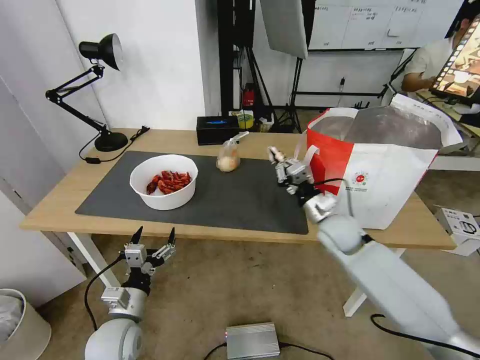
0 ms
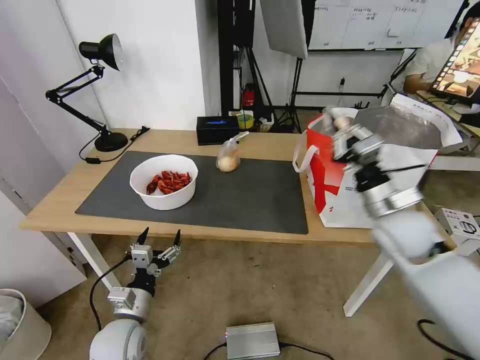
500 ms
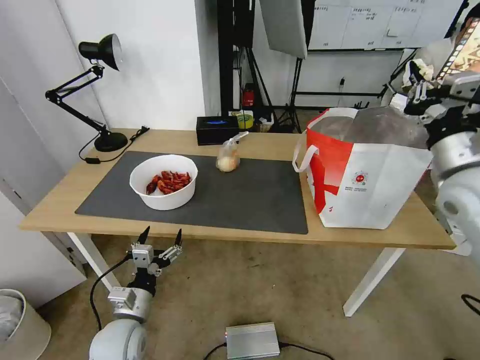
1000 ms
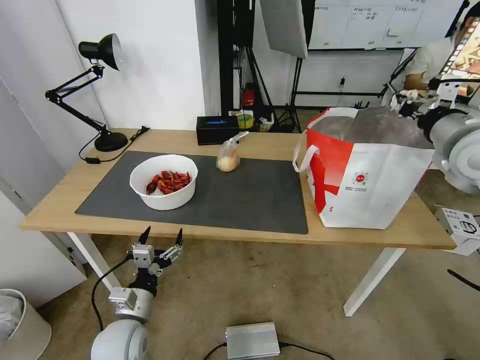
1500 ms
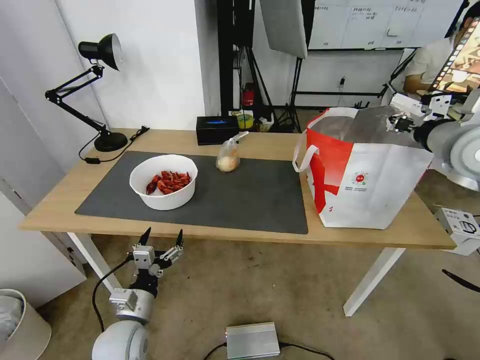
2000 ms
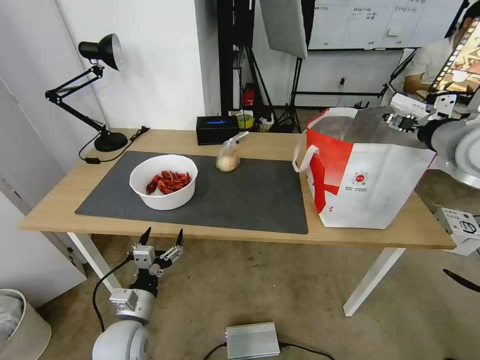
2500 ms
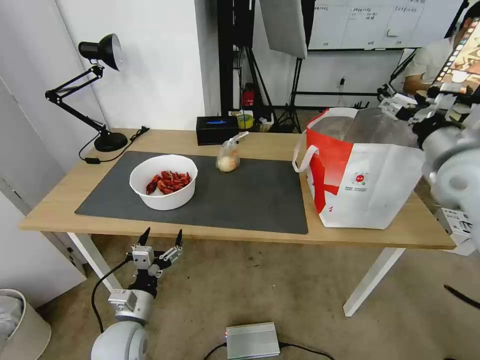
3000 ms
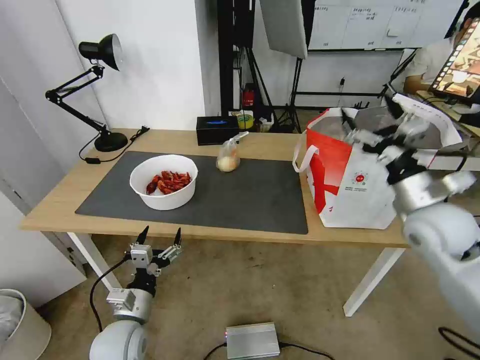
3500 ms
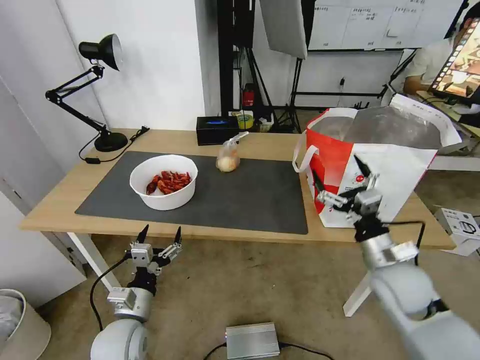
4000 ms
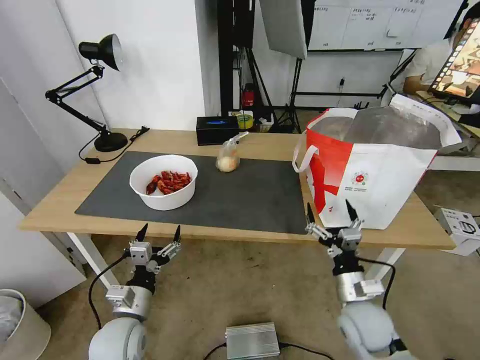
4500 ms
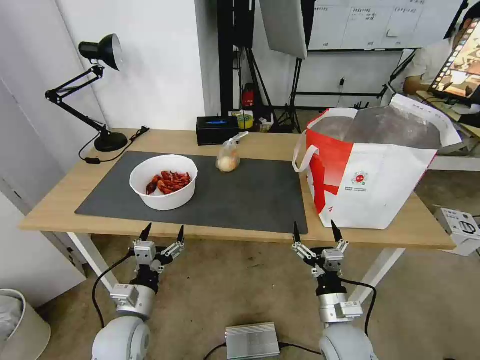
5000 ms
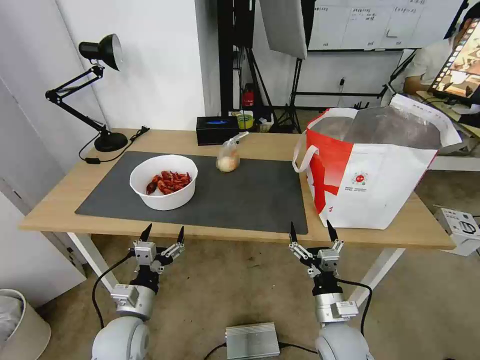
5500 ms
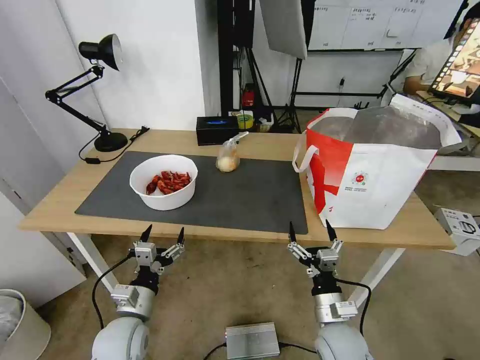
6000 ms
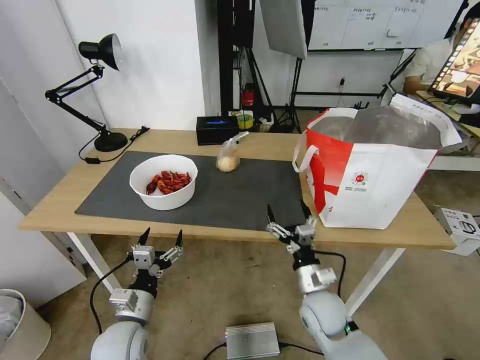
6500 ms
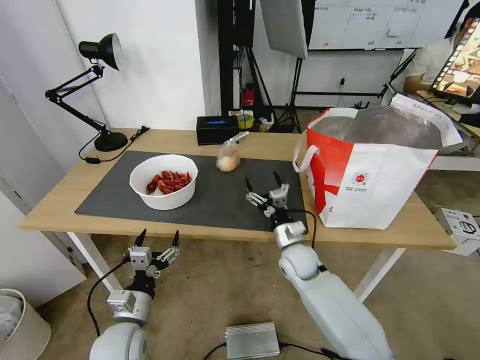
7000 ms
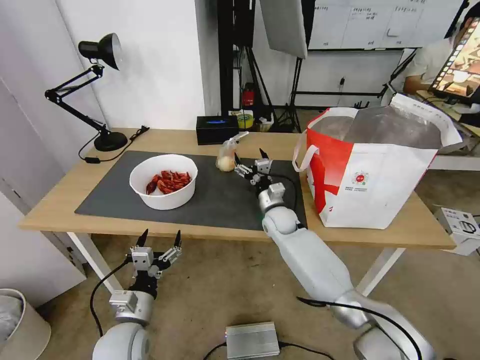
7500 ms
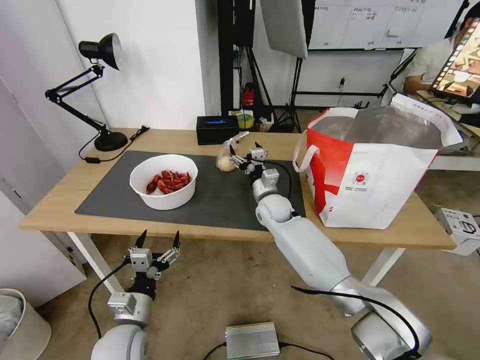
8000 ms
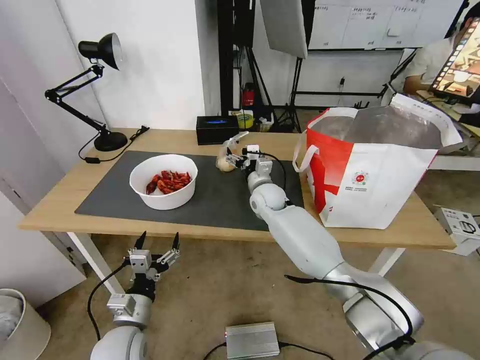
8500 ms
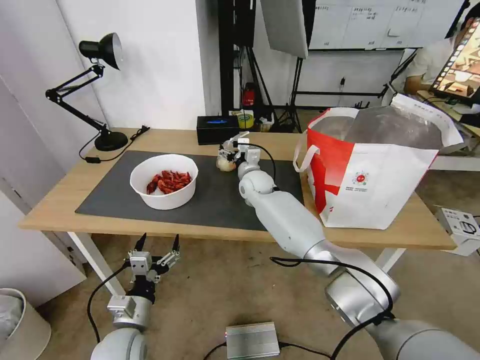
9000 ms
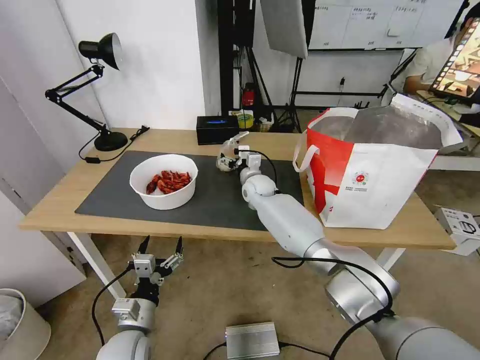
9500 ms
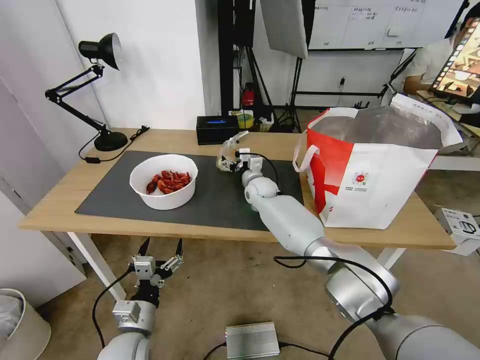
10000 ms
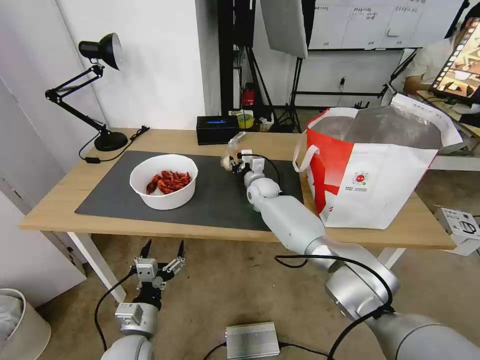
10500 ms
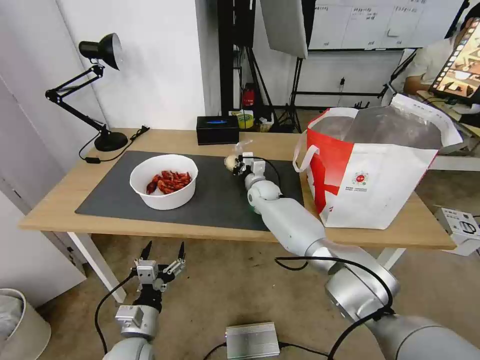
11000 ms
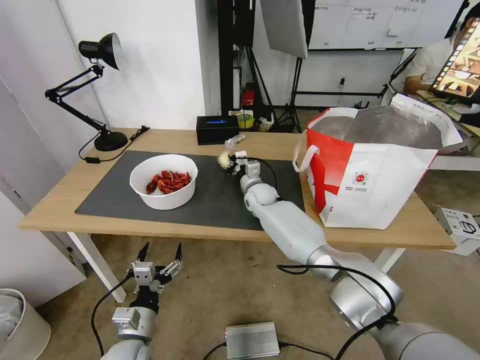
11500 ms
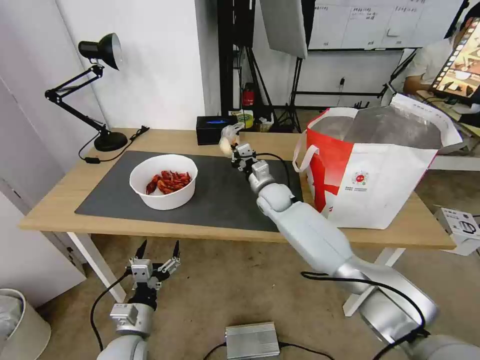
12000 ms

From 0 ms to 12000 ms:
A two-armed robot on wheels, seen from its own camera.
Task of the whole recording: Pick up the trash from the table and place it into the takeout bag.
From 0 ms to 2000 ms: The right gripper moves upward and to the right, roughly 30 cm.
From 2000 ms to 4000 ms: The right gripper is displaced downward and backward by some 25 cm, and opens its fingers.
From 4000 ms to 6000 ms: The right gripper goes some 20 cm downward, to the left and backward.
From 6000 ms to 8000 ms: The right gripper moves forward, roughly 30 cm.
From 8000 ms to 10000 ms: The right gripper heads forward, covering roughly 5 cm.
From 10000 ms to 12000 ms: The right gripper shifts by about 5 cm, and closes.

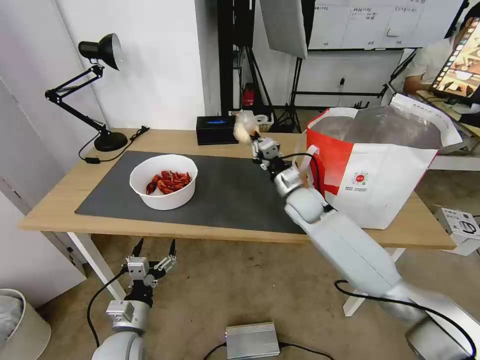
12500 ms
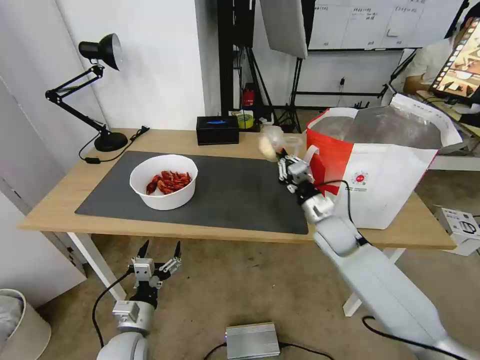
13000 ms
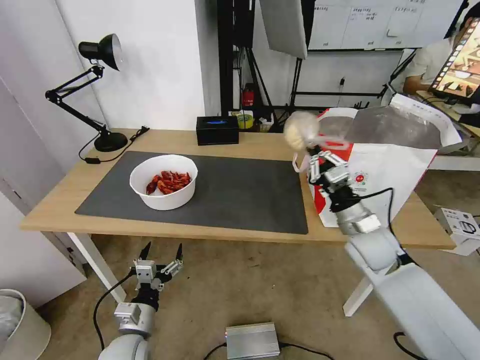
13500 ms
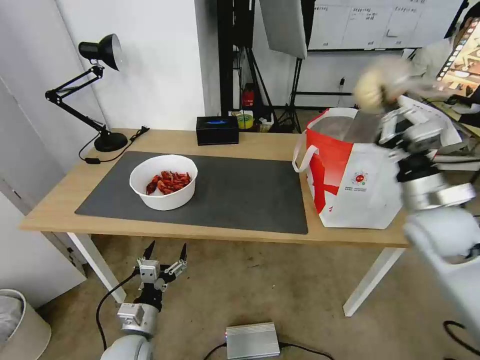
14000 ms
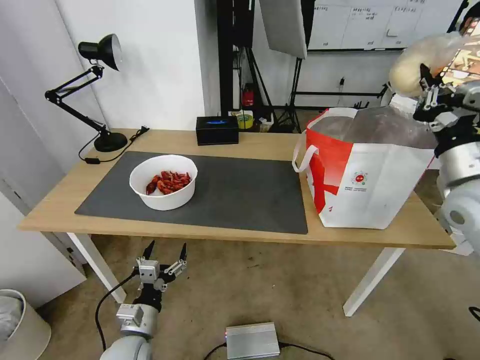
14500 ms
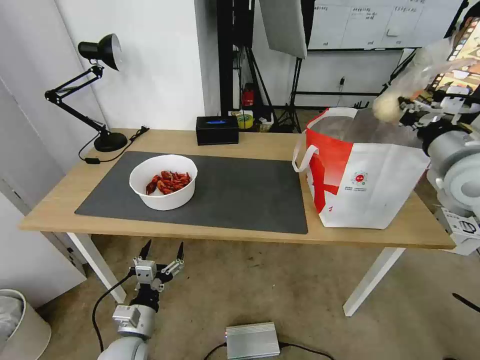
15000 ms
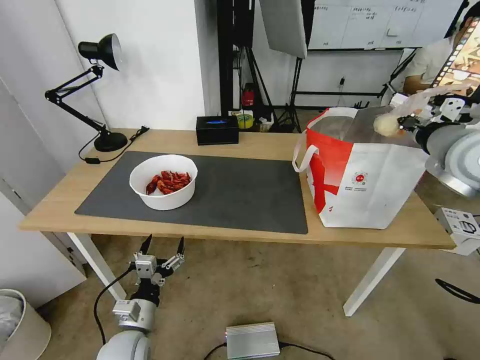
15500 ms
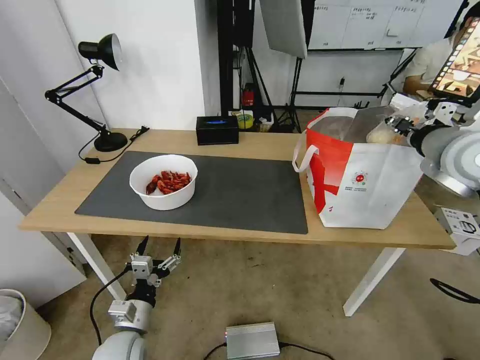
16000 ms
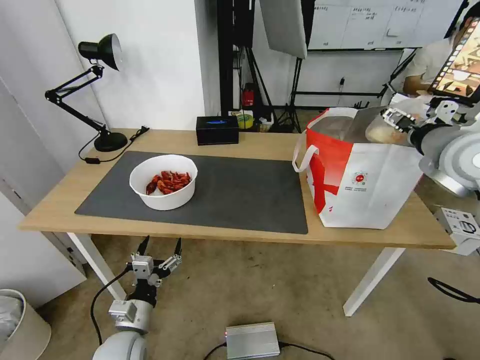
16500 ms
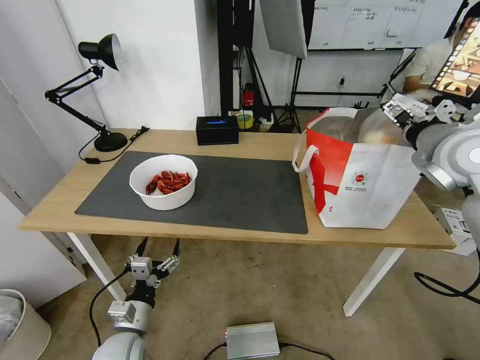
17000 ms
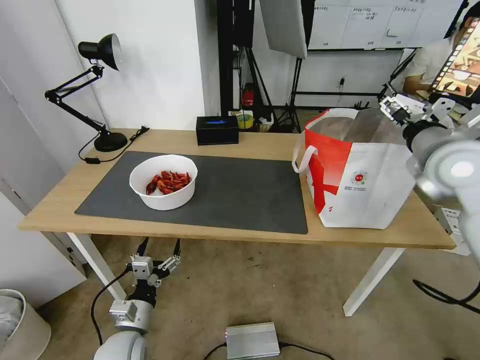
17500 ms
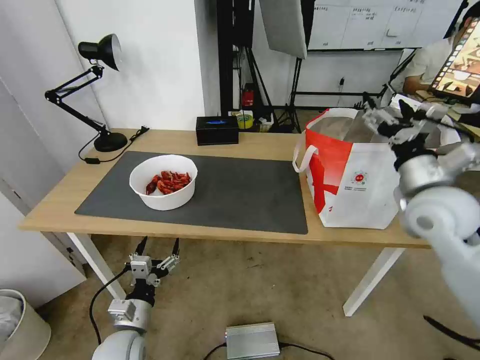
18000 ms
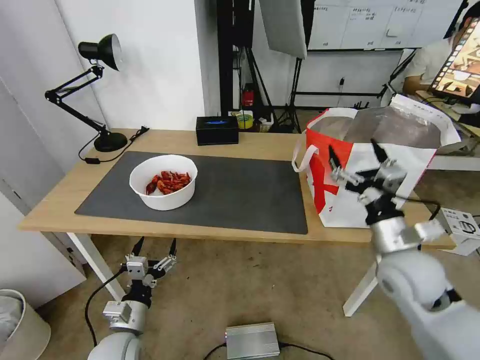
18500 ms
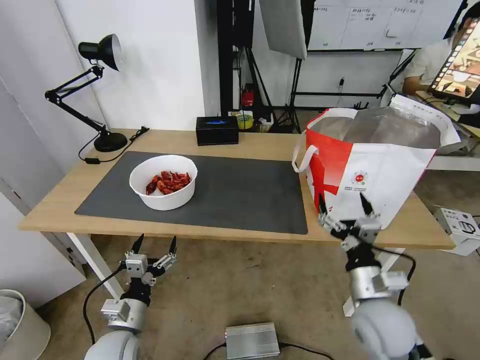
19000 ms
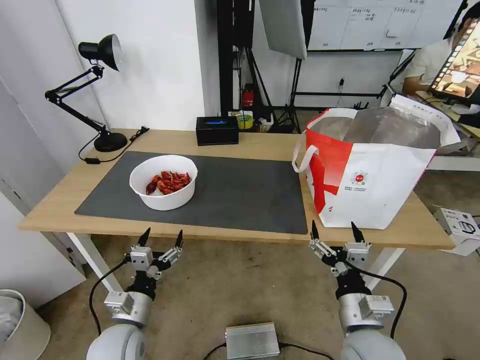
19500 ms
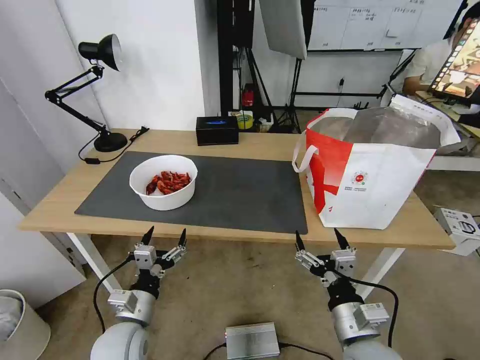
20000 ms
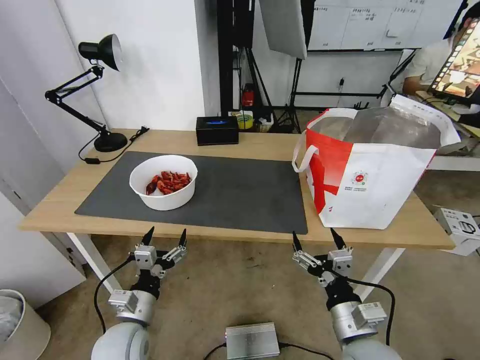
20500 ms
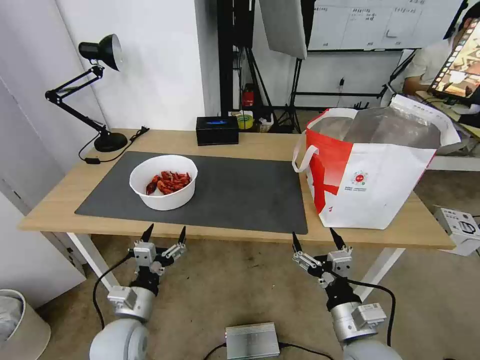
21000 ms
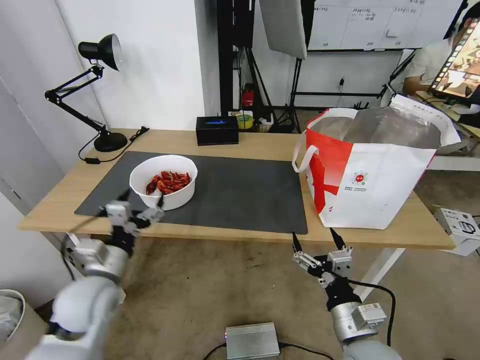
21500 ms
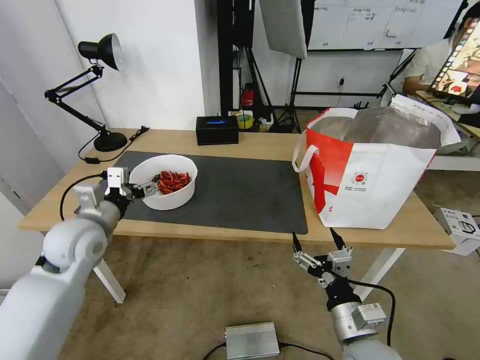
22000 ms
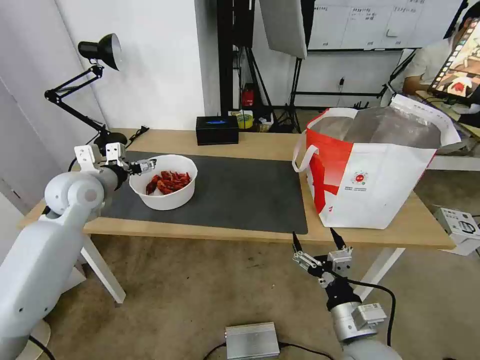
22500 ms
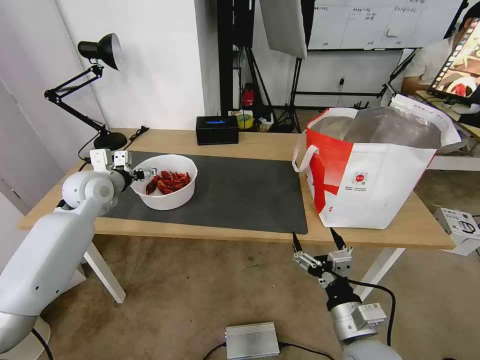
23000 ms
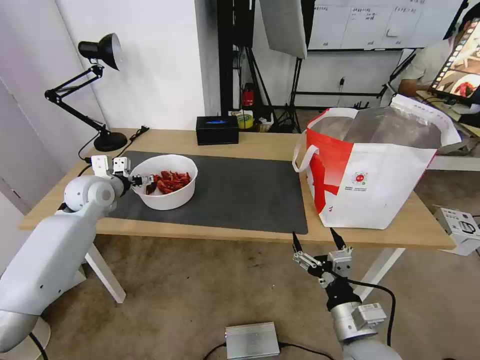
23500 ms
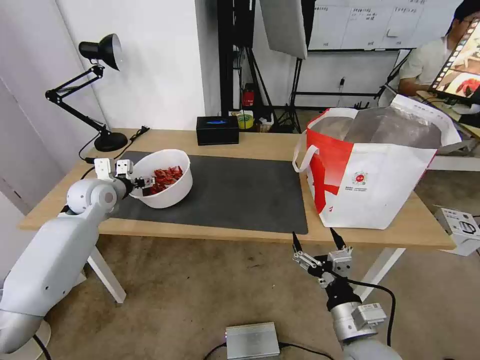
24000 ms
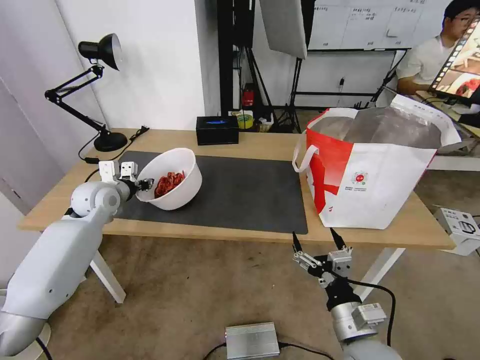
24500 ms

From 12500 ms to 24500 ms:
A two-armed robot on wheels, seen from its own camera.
Task of the whole recording: Pick up the trash from the table and place it into the takeout bag.
From 12500 ms to 14500 ms: The right gripper moves to the right, upward and backward, some 30 cm.
From 14500 ms to 16500 ms: The right gripper is displaced upward by roughly 5 cm, and opens up.
From 16500 ms to 18500 ms: The right gripper moves downward and backward, about 20 cm.
From 18500 ms to 20500 ms: The right gripper travels backward, downward and to the left by roughly 20 cm.
From 20500 ms to 22500 ms: The left gripper heads forward, upward and to the left, covering approximately 35 cm.
From 22500 ms to 24500 ms: The left gripper heads downward, covering approximately 5 cm, and closes.

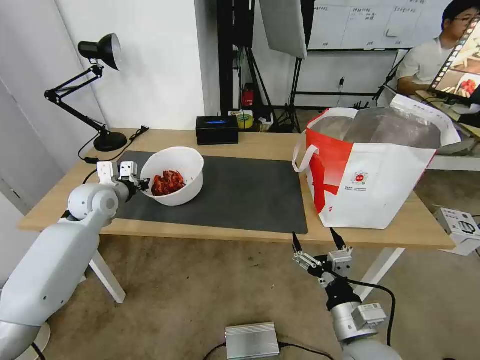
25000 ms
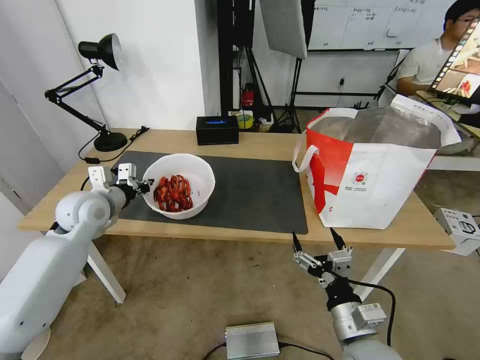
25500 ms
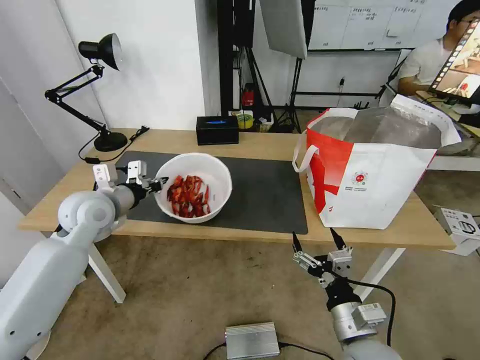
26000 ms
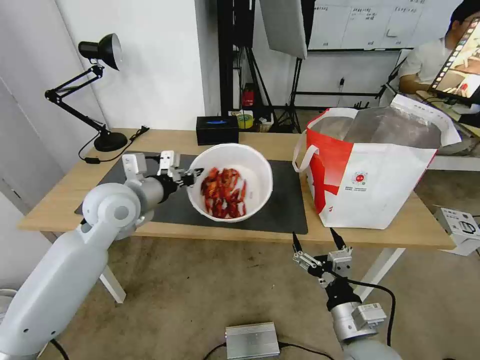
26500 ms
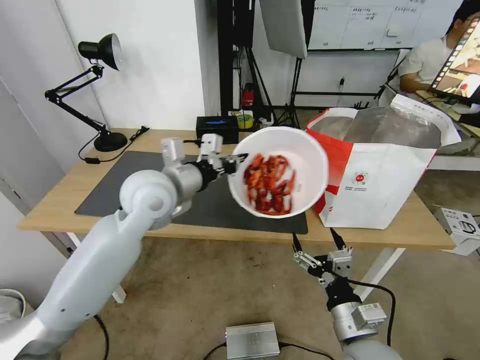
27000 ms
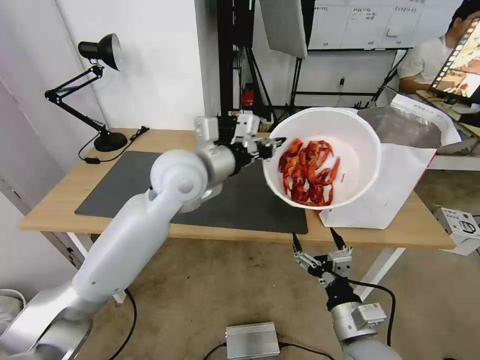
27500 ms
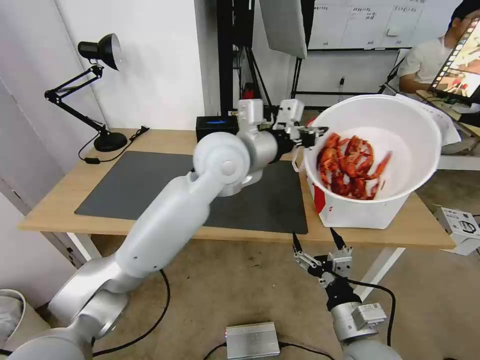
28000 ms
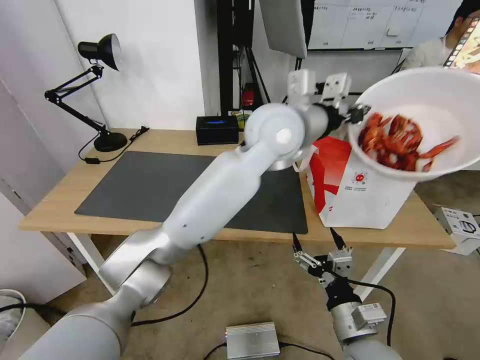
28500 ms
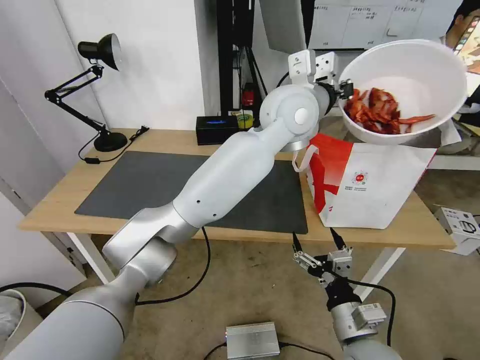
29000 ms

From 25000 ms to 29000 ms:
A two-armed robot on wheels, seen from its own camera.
Task of the whole recording: Pick up the trash from the table and place it into the takeout bag.
From 25000 ms to 27000 ms: The left gripper moves to the right, upward and backward, approximately 20 cm.
From 27000 ms to 29000 ms: The left gripper shifts about 30 cm to the right and upward.
